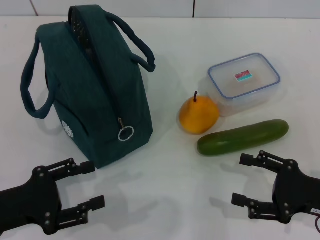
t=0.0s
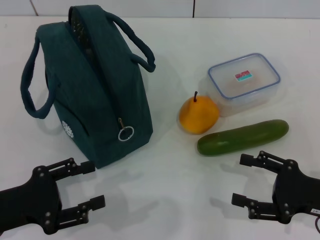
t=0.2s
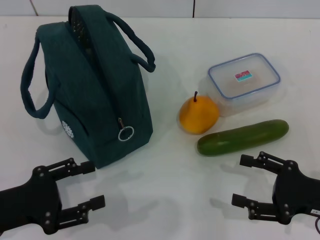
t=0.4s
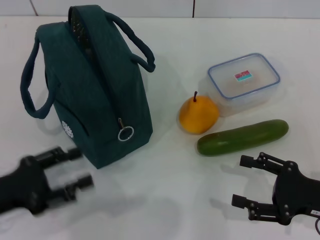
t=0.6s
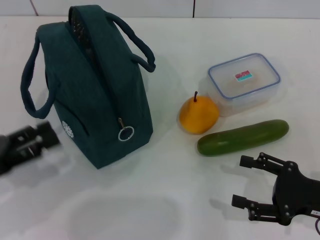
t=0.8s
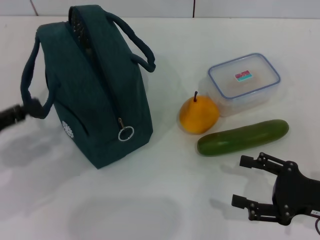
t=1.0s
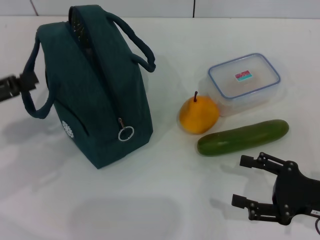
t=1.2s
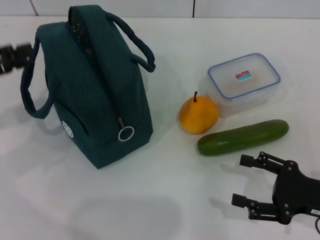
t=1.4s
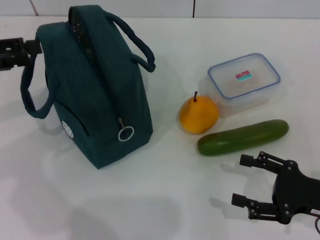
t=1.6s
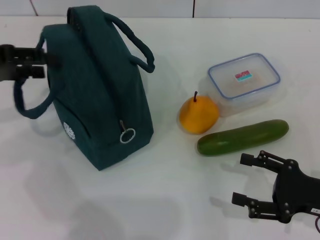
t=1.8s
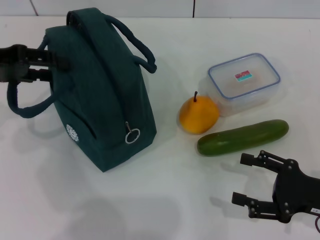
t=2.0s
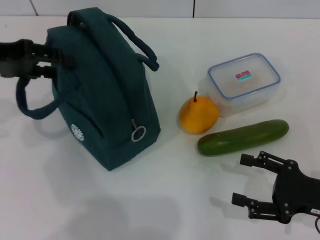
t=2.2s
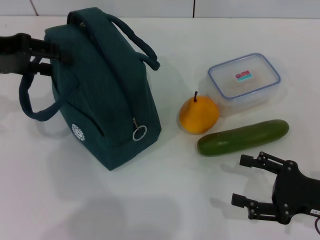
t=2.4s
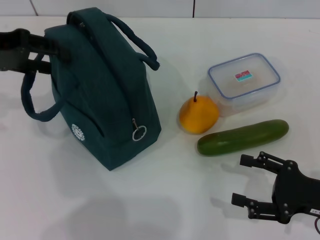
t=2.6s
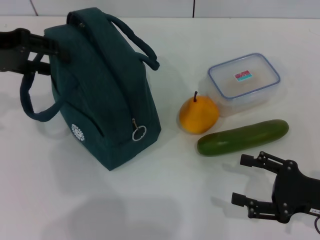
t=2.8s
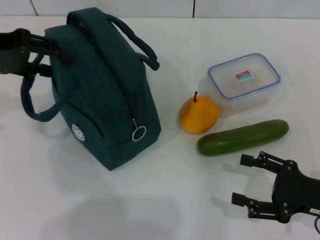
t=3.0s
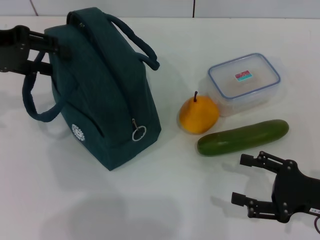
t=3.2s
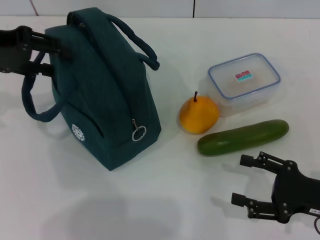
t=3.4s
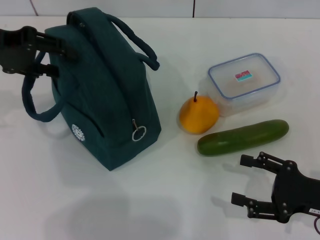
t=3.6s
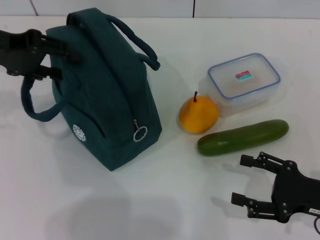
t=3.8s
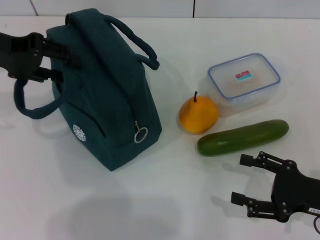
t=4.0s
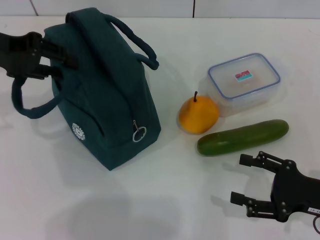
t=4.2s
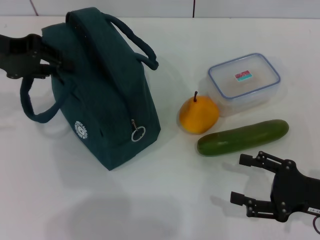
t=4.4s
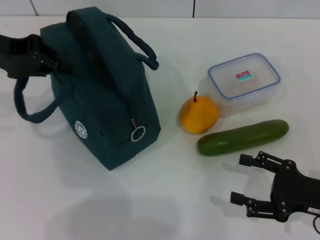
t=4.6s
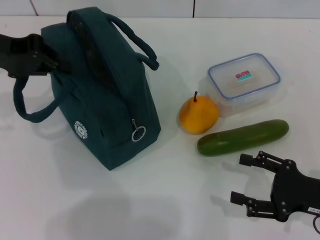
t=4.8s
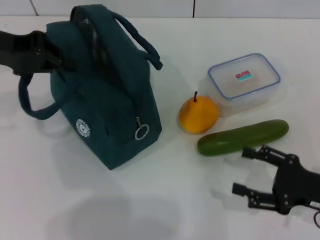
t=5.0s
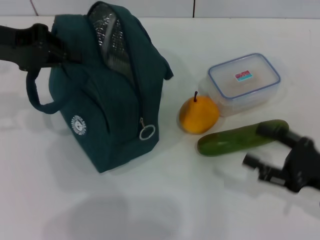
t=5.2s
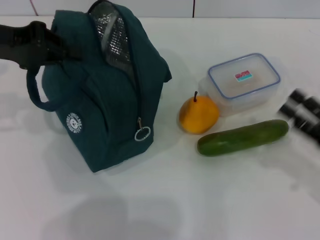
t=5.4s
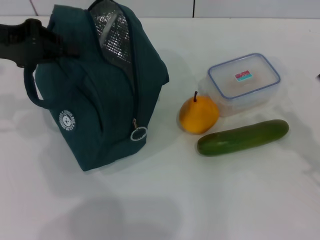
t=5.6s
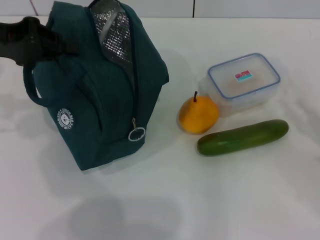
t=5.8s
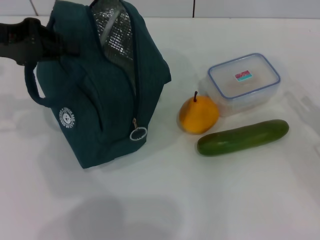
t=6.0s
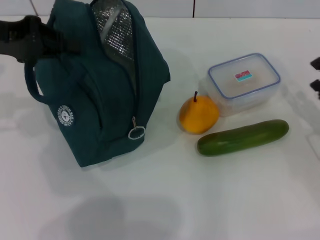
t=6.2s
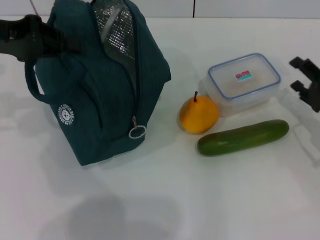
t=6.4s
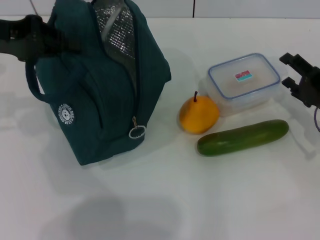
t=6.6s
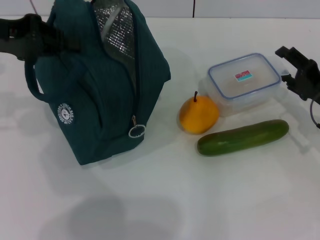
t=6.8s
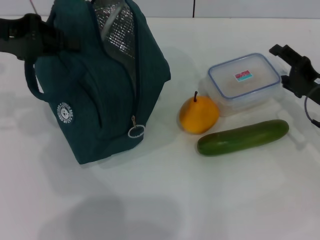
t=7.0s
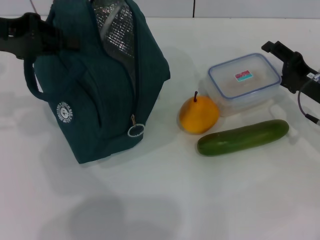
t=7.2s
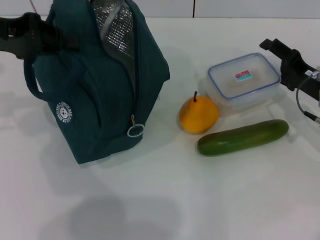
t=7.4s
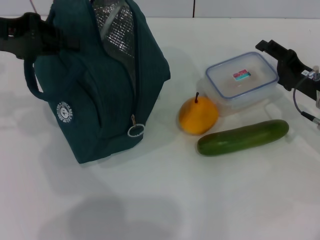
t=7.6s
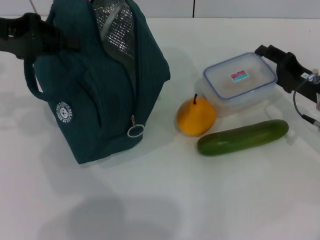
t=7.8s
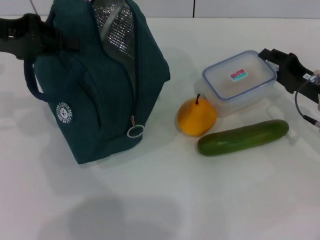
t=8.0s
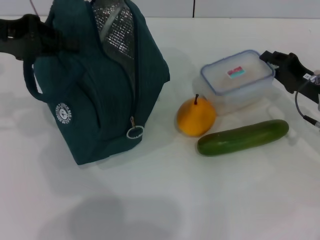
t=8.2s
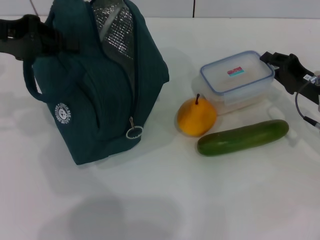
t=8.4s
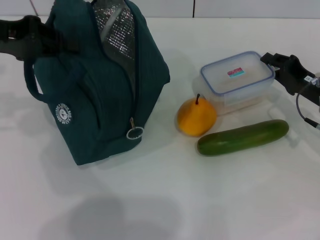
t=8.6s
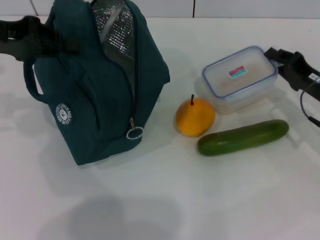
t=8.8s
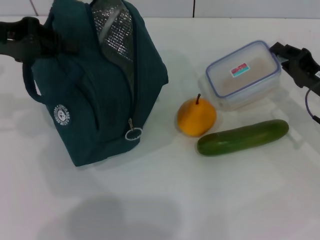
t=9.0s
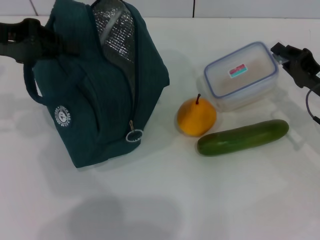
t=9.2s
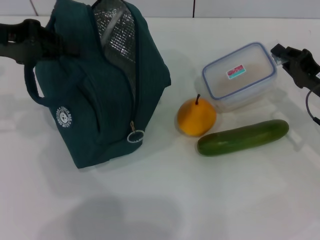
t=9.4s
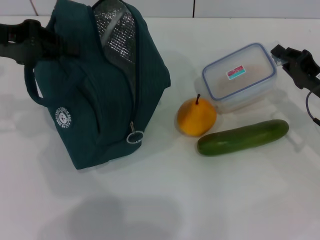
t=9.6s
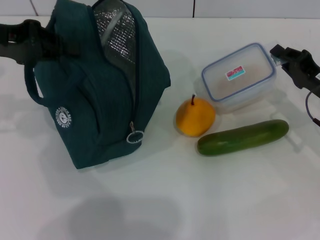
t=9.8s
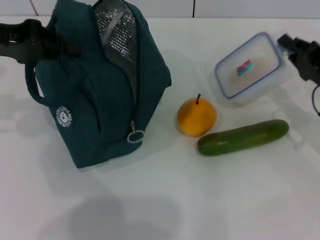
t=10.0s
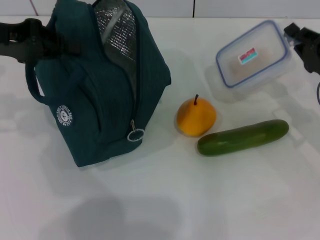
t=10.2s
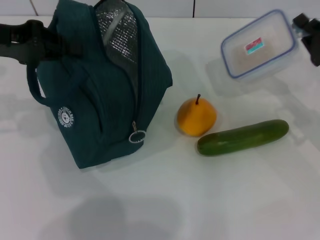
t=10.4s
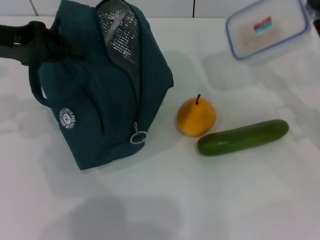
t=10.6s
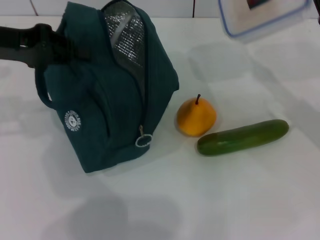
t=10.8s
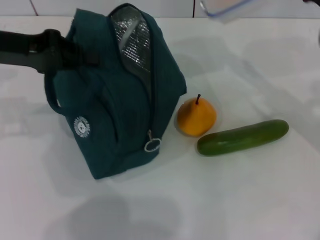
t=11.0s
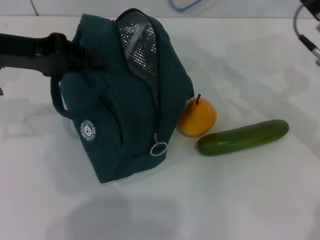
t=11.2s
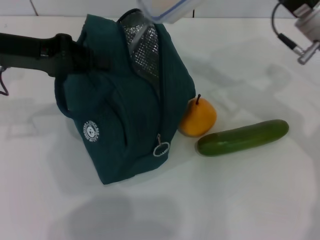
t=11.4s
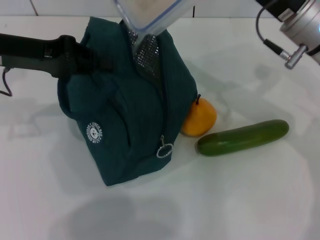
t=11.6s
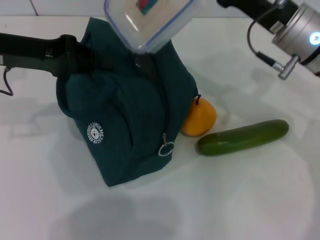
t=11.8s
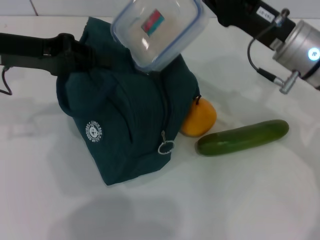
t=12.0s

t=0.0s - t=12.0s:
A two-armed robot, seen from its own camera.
Step, t=0.0s - t=4.6s: Hold the lunch bag with your left hand.
Step, t=4.8s - t=9.0s: Pick up the lunch box with your right hand.
t=0.0s - t=1.6s: The left gripper travels upward, forward and to the left by approximately 20 cm.
t=1.6s - t=3.0s: The left gripper heads forward, covering some 5 cm.
t=3.0s - t=4.4s: The left gripper closes its fingers.
t=4.4s - t=6.0s: The right gripper is displaced to the right by roughly 5 cm, while the left gripper closes up.
t=6.0s - t=7.6s: The right gripper shifts some 10 cm forward and to the left.
t=7.6s - t=9.0s: The right gripper closes.
t=9.0s - t=10.4s: The grippers stay close to where they were, moving slightly.
t=10.4s - t=12.0s: The right gripper moves to the left and upward, approximately 15 cm.

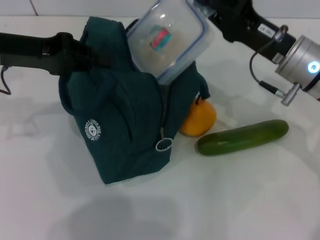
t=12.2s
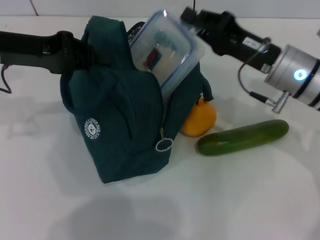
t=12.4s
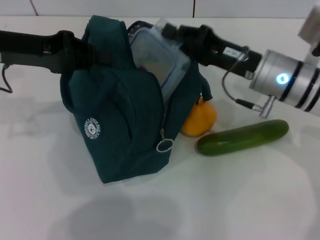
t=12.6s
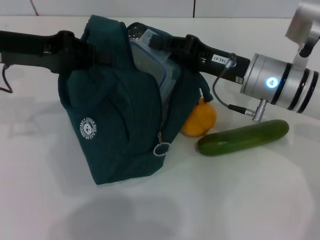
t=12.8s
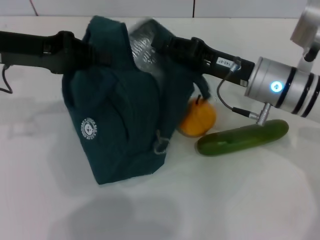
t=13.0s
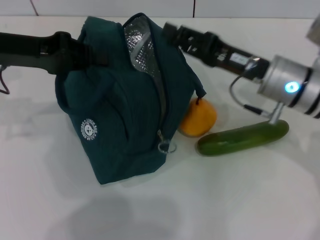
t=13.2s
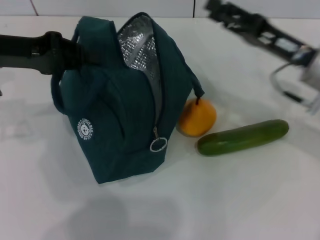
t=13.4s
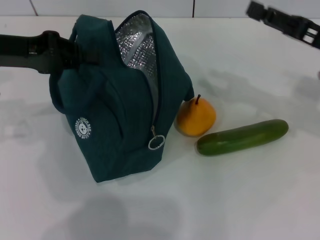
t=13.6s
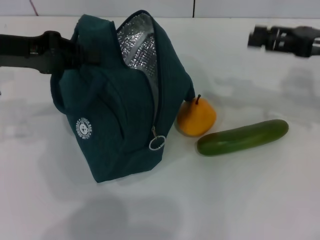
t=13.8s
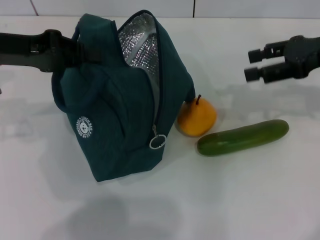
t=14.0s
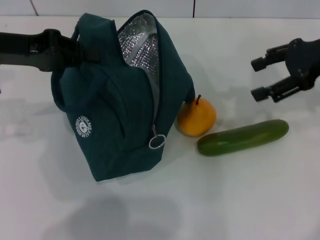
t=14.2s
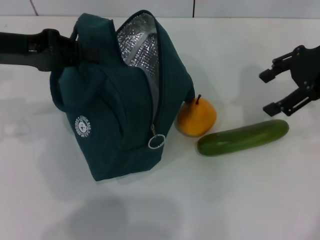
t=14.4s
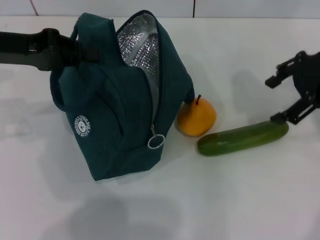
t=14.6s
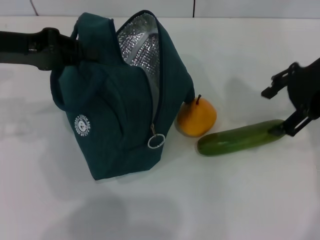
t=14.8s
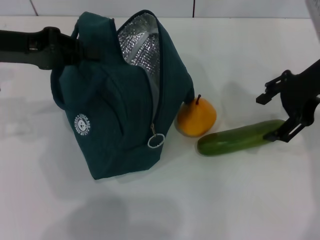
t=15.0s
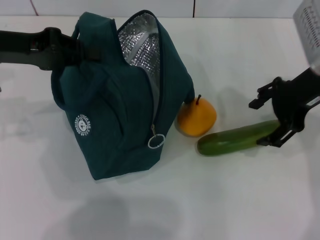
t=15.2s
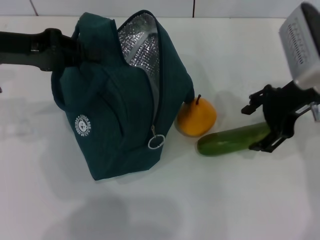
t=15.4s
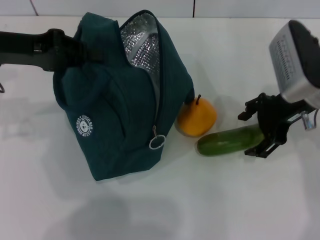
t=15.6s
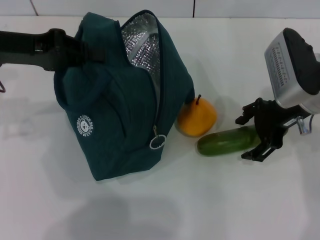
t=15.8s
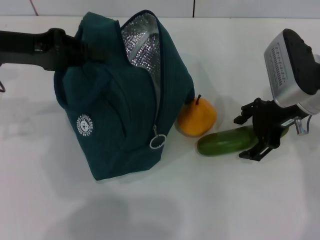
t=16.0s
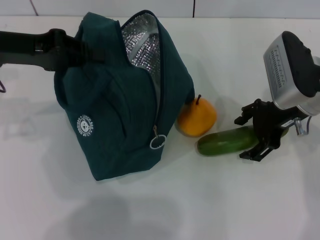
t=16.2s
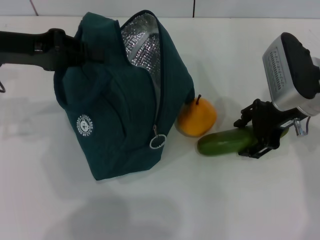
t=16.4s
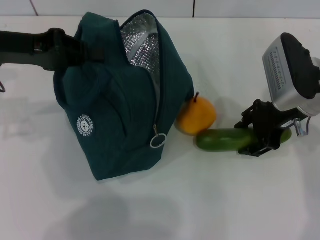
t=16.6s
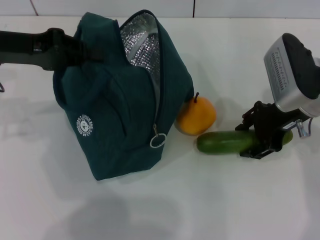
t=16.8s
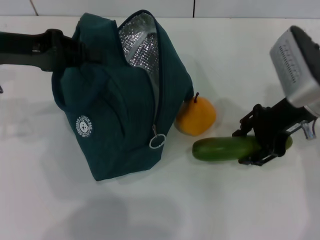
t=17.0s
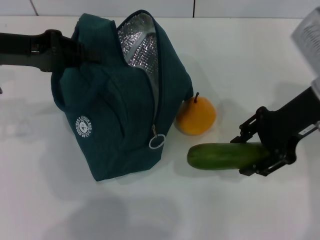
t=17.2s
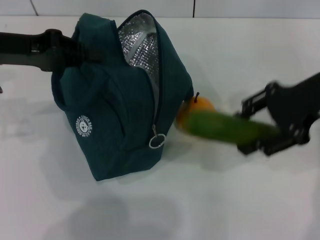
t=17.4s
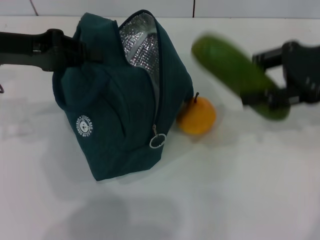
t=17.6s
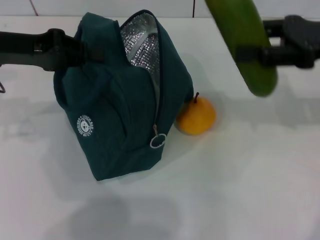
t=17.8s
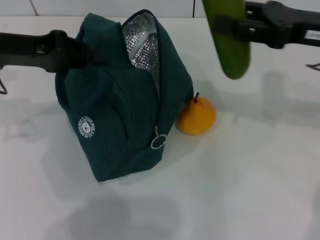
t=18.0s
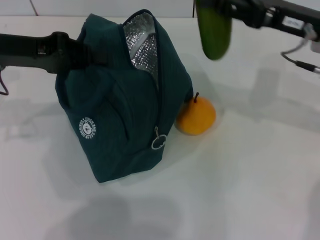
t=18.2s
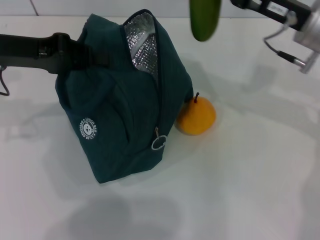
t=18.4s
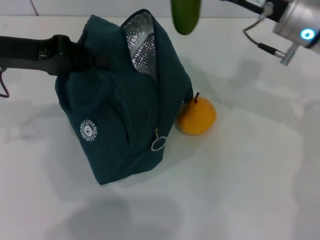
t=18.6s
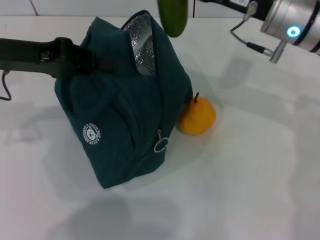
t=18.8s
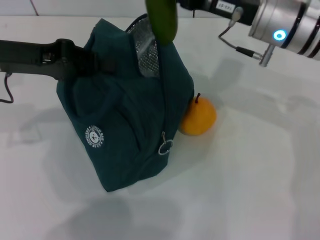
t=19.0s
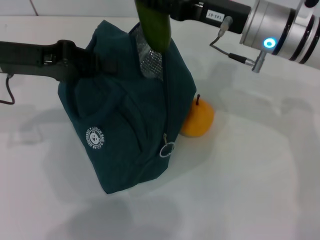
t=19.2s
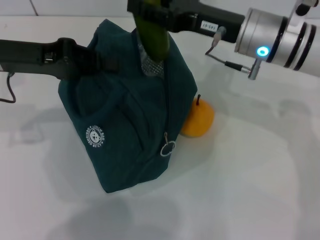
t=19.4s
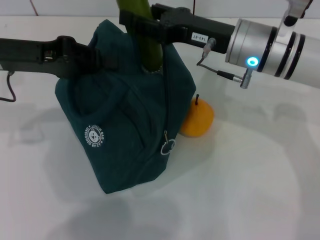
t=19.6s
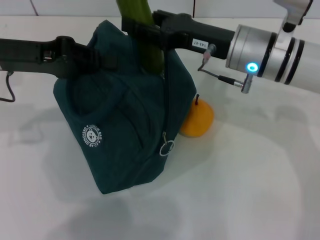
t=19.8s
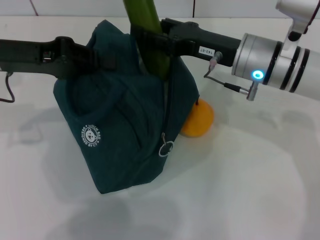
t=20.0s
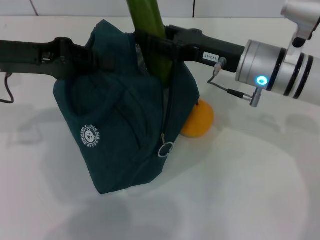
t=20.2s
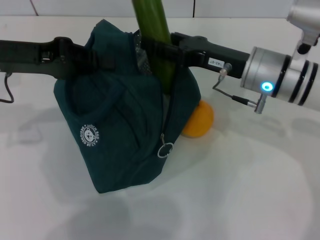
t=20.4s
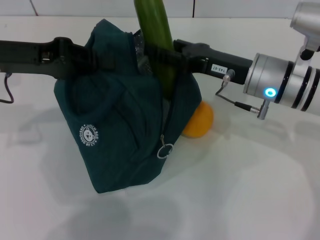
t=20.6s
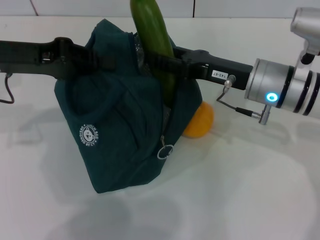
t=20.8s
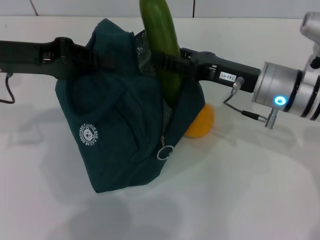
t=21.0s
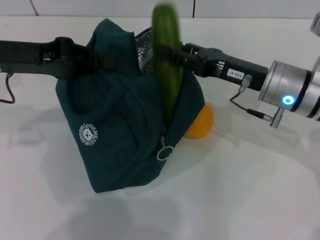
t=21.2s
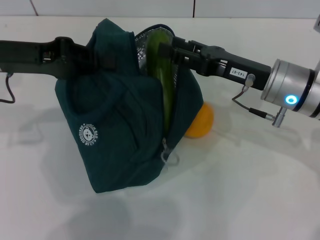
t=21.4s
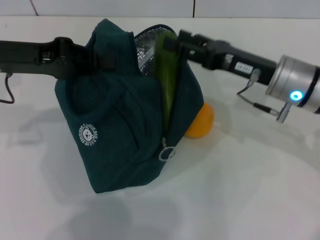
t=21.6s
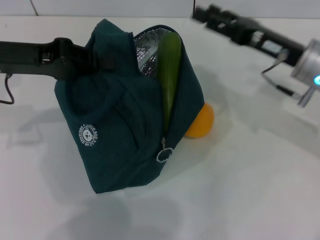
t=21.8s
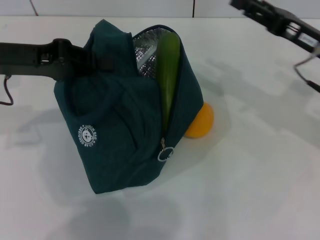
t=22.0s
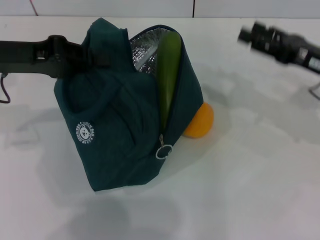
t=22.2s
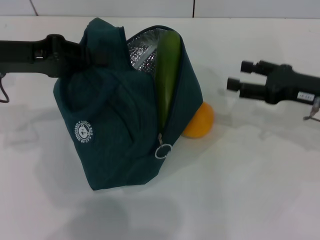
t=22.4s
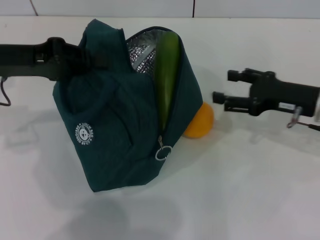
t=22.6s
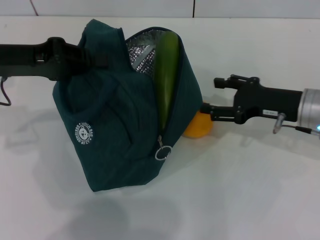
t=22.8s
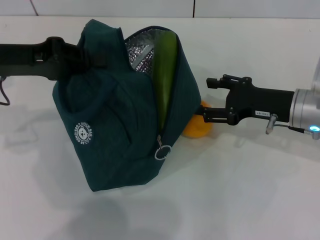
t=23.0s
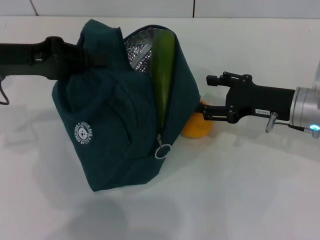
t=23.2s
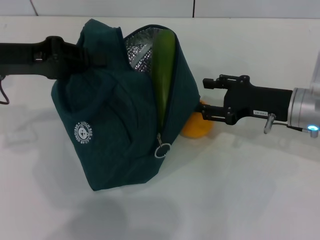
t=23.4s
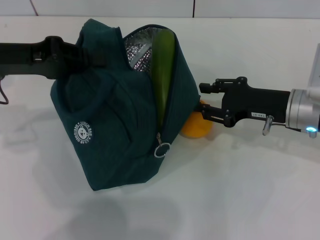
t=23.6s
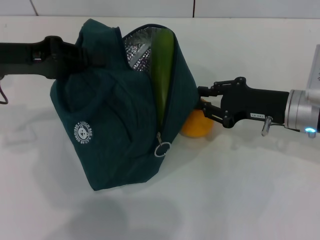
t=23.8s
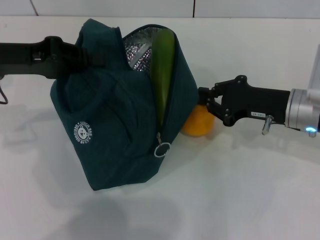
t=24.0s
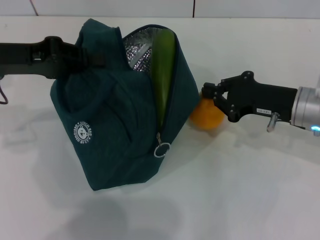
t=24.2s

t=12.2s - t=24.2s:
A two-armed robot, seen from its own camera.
Step, t=13.0s - t=16.6s: Pick up the cucumber with your right hand.
Step, t=16.8s - t=21.4s: Put the cucumber into the lunch bag with your right hand.
Step, t=21.6s - t=23.8s: Grab the pear with your right hand.
t=12.2s - t=13.8s: The right gripper travels to the right by some 10 cm, and opens.
t=13.8s - t=15.2s: The right gripper goes about 10 cm to the left.
t=15.2s - t=16.6s: The right gripper travels downward by roughly 5 cm.
t=18.2s - t=19.8s: The right gripper travels to the left by about 10 cm.
t=19.8s - t=21.2s: The right gripper ends up approximately 5 cm from where it was.
t=21.2s - t=22.6s: The right gripper is displaced to the right by some 10 cm.
t=22.6s - t=24.2s: The right gripper closes.
